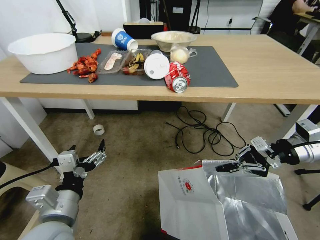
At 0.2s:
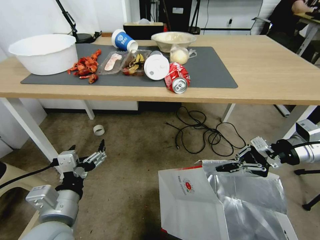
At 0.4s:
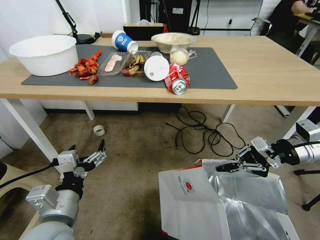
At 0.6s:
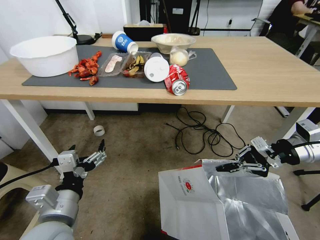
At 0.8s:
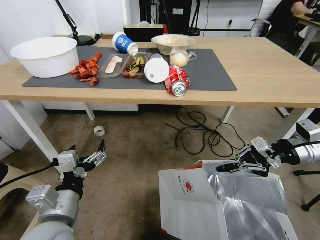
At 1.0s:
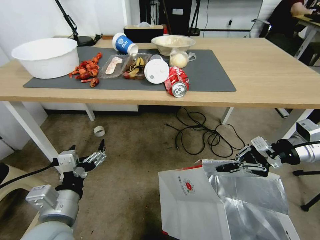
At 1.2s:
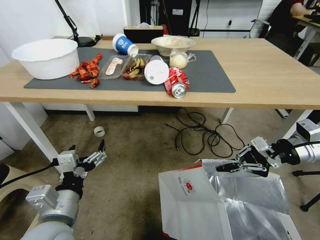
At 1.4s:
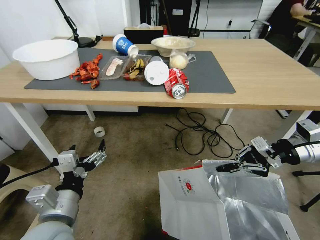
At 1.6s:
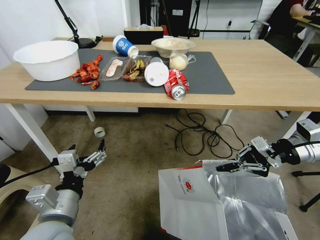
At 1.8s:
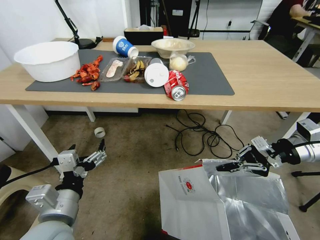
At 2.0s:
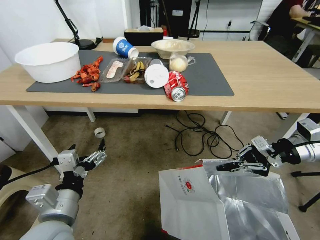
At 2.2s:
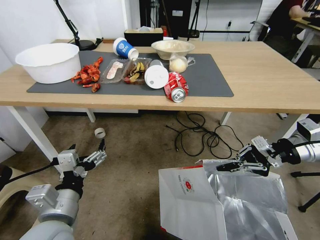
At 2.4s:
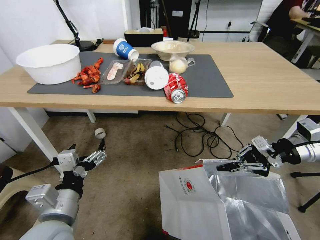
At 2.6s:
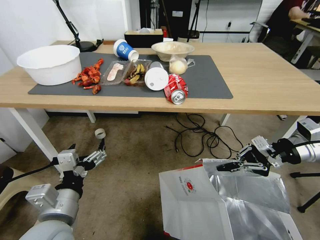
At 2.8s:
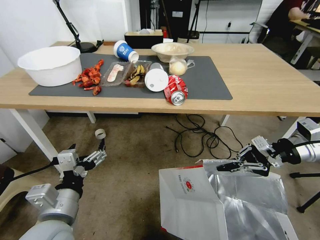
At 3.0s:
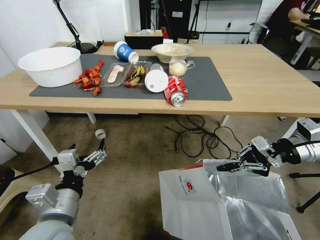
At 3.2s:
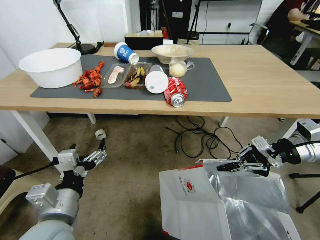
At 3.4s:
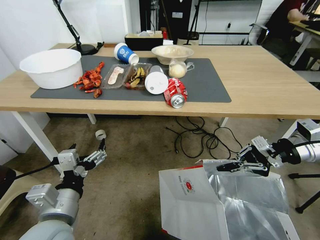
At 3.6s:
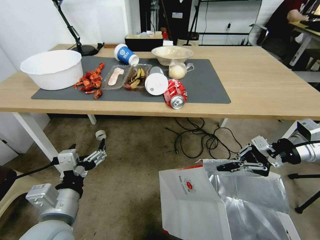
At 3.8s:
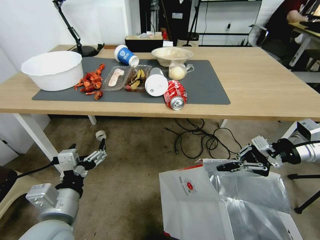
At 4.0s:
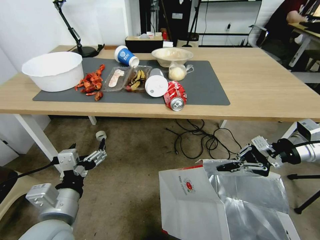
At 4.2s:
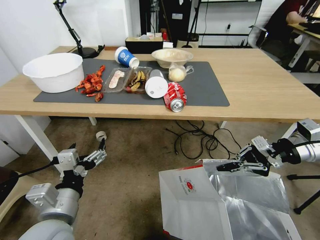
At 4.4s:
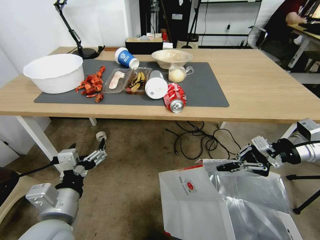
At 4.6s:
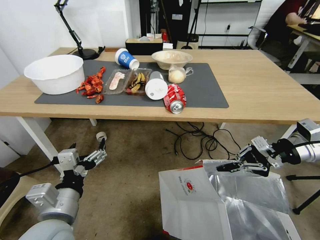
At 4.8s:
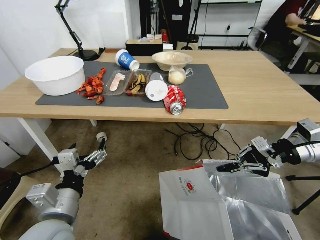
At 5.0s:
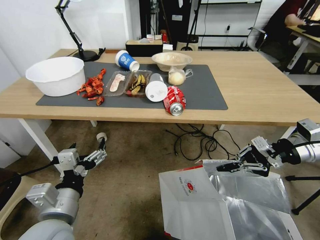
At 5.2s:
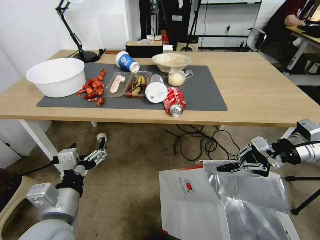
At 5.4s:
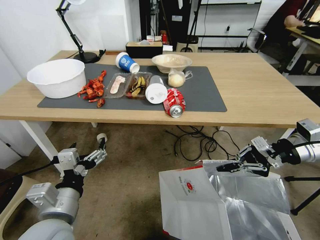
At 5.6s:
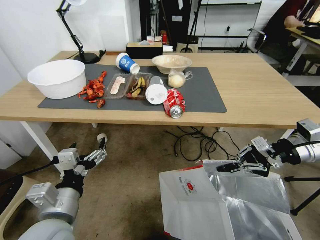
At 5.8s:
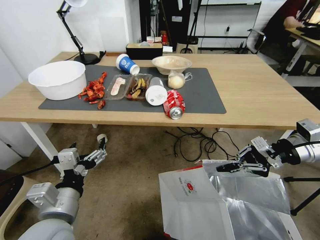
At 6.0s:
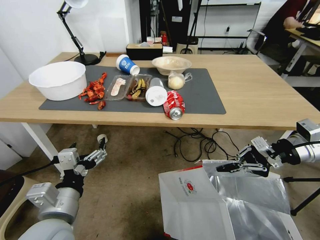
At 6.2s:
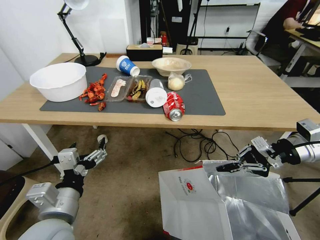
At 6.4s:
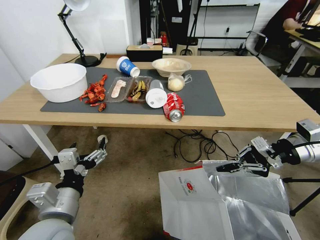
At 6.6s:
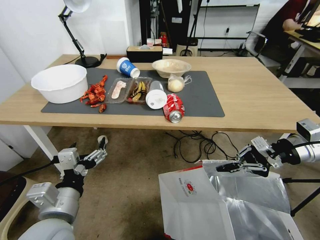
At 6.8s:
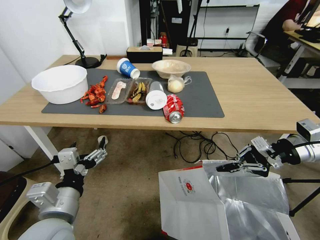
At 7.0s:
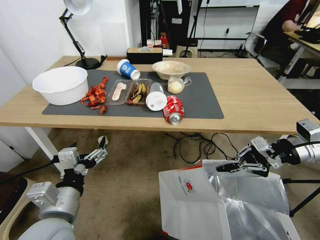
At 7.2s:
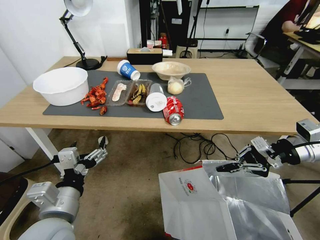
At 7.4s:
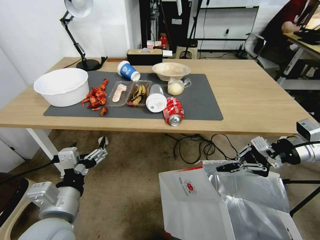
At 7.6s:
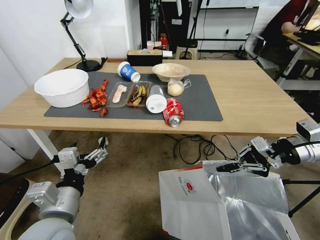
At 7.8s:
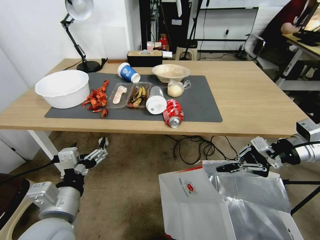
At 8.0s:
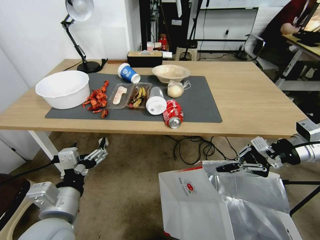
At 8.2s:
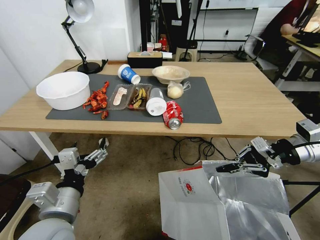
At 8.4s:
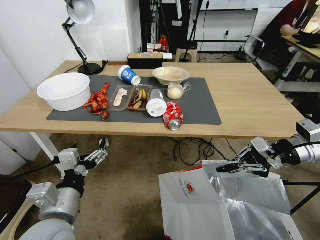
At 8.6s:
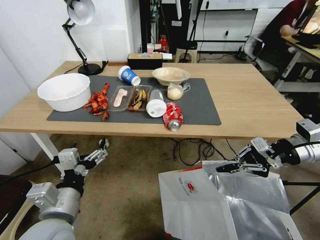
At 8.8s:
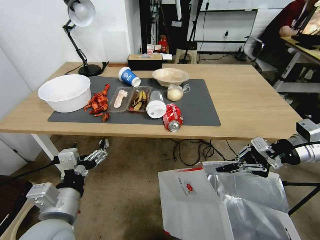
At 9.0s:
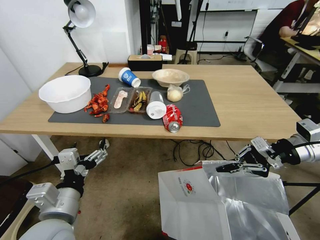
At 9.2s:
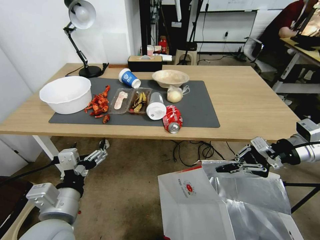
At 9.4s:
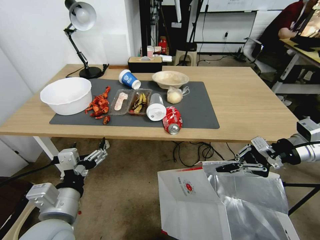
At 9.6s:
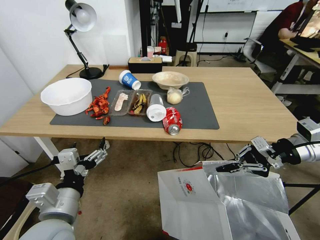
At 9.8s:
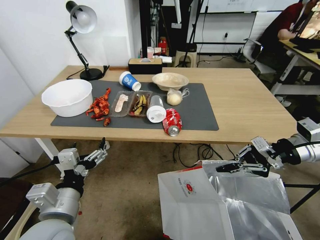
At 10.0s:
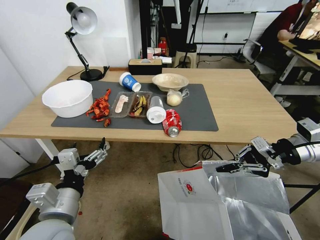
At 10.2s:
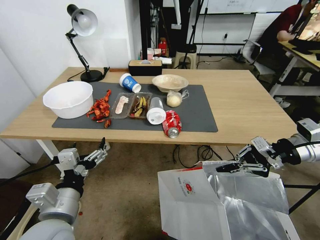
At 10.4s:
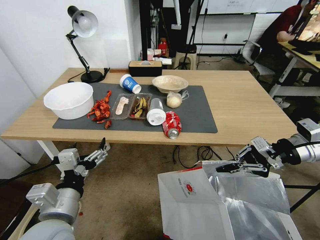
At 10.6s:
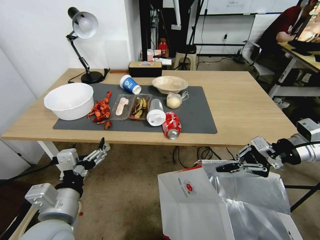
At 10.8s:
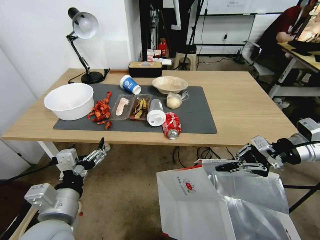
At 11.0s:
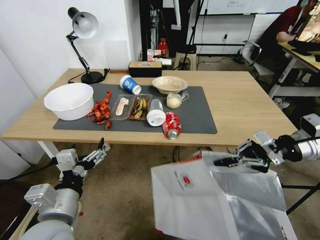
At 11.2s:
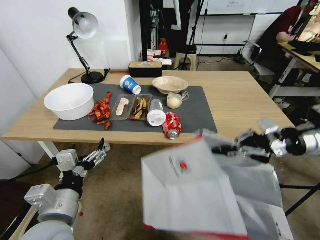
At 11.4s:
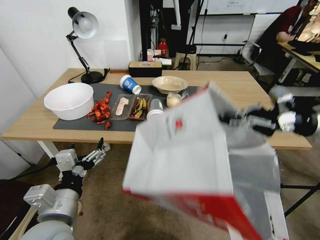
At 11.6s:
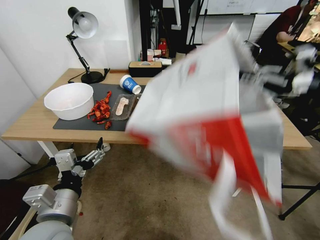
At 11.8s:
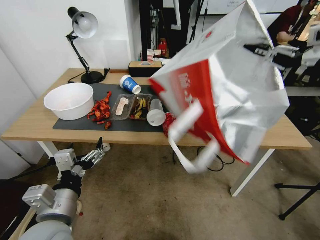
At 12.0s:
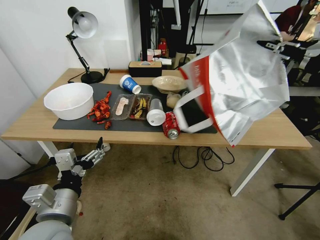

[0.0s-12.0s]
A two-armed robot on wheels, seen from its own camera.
Task of the whole recording: Pick up the food delivery bag from the floor and place it on the table.
10.4s to 12.0s: The right gripper is displaced upward by approximately 15 cm.

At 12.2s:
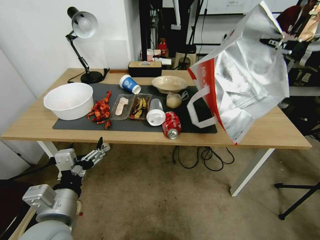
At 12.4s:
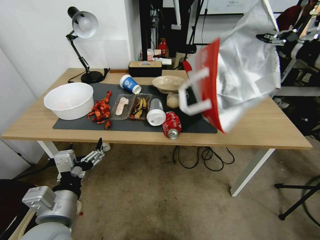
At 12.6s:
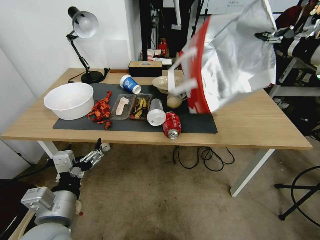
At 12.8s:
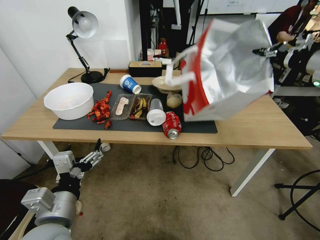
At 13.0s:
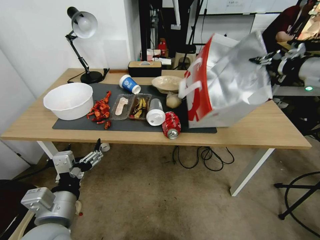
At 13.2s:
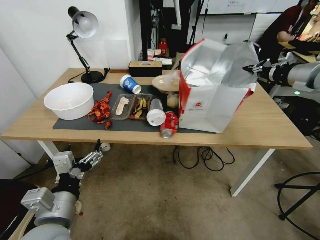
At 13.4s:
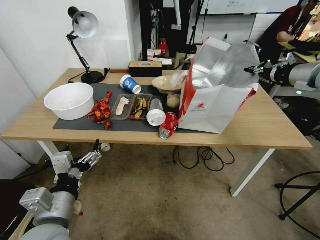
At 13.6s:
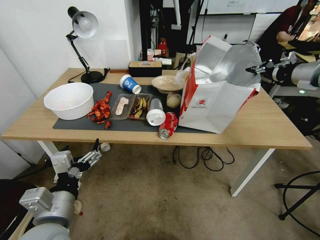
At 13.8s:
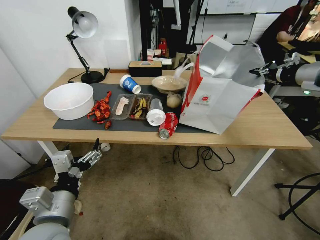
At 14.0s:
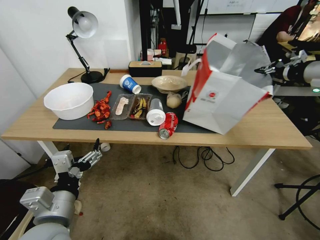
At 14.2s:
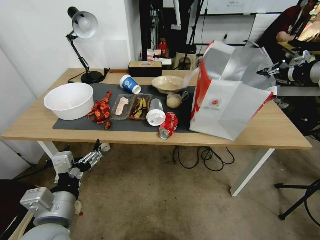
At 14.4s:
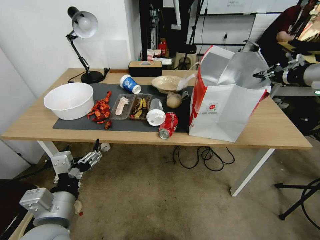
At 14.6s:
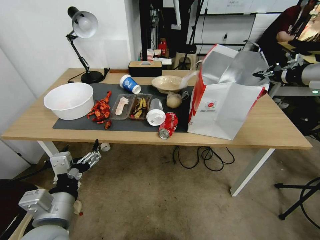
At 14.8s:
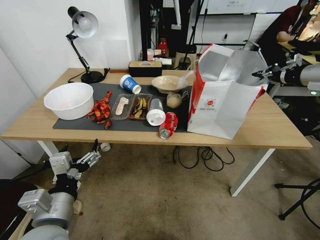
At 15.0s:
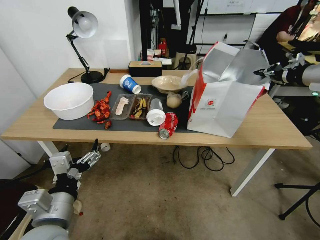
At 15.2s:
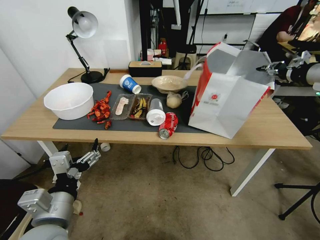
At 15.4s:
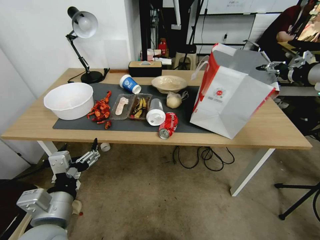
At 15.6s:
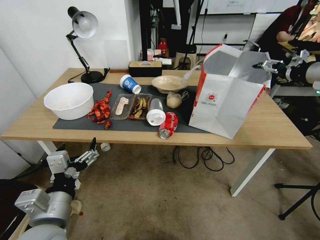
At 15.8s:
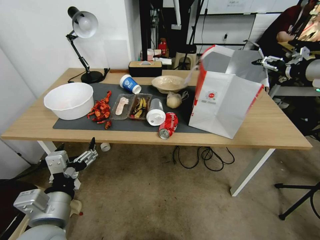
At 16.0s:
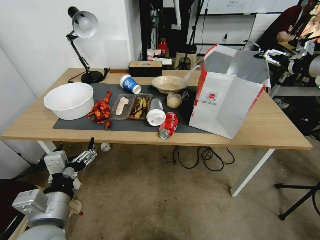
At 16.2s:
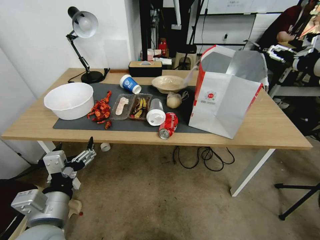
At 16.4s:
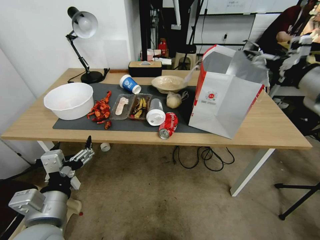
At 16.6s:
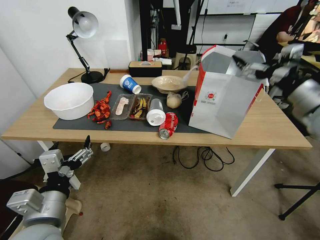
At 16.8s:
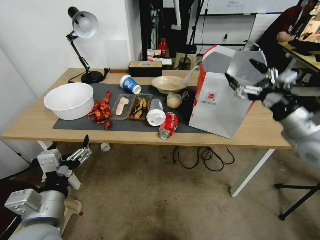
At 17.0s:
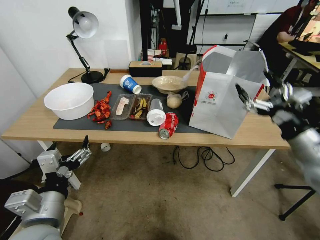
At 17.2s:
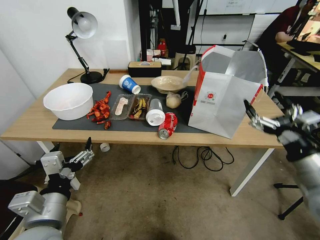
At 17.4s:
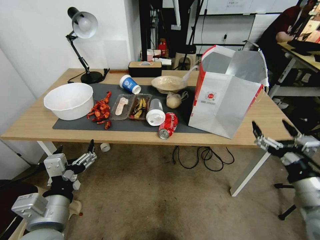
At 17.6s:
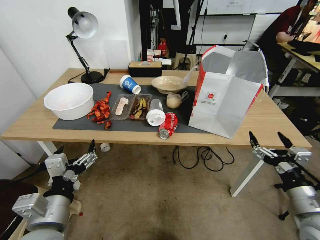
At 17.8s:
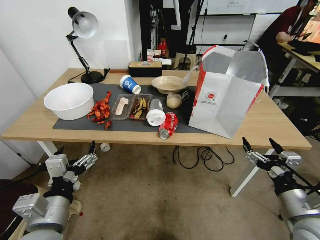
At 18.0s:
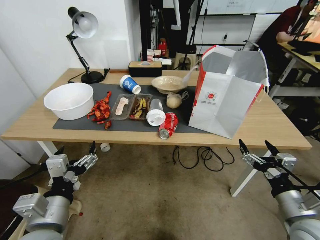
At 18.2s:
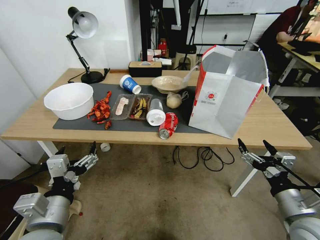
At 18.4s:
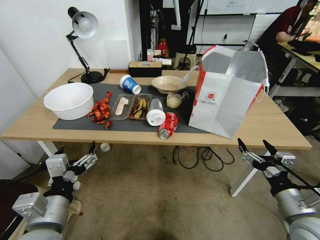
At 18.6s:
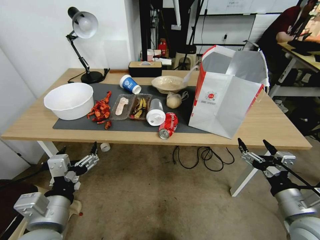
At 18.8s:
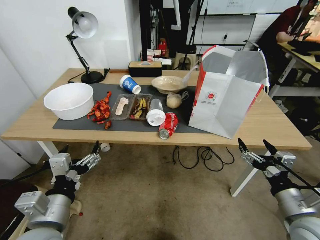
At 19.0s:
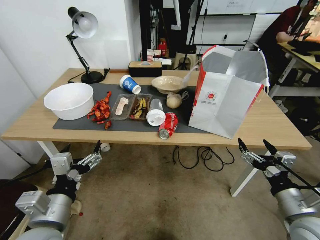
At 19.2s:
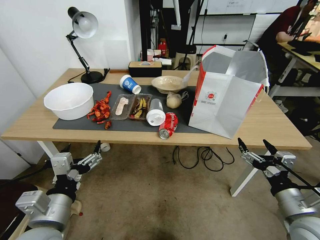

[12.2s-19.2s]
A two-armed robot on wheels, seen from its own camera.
Task of the whole recording: Pick up the food delivery bag from the floor and place it on the table.
12.2s to 13.6s: The right gripper goes approximately 5 cm forward.
13.6s to 15.0s: The grippers make only small movements.
15.0s to 16.4s: The right gripper heads backward and to the left, covering approximately 10 cm, and opens its fingers.
16.4s to 17.8s: The right gripper goes roughly 30 cm downward and backward.
17.8s to 19.2s: The two grippers keep their place.

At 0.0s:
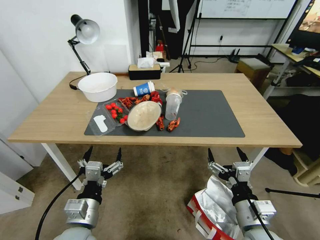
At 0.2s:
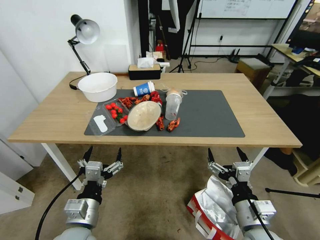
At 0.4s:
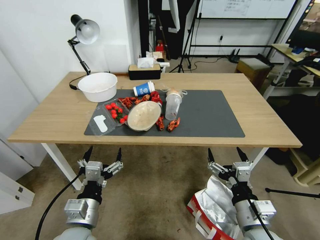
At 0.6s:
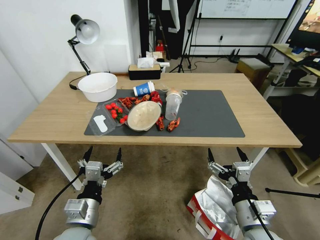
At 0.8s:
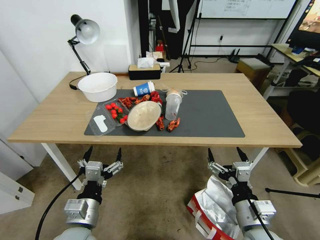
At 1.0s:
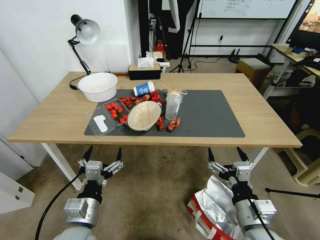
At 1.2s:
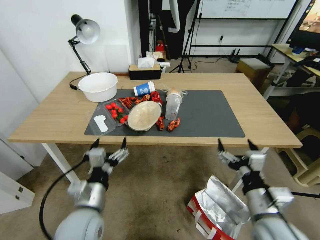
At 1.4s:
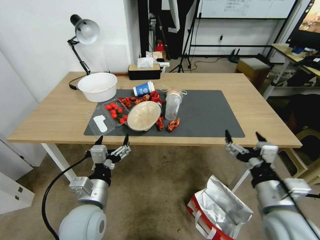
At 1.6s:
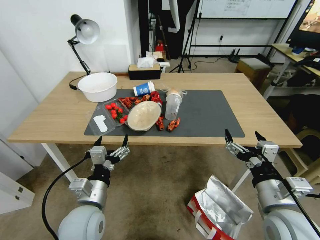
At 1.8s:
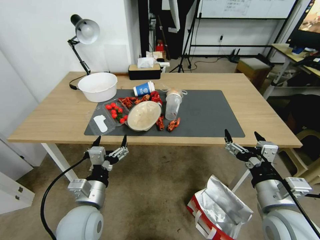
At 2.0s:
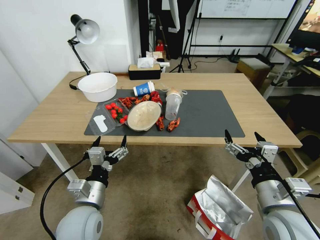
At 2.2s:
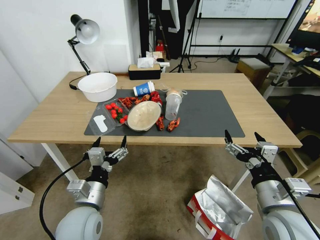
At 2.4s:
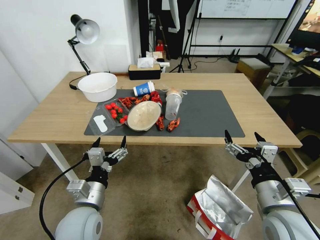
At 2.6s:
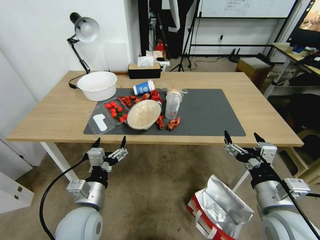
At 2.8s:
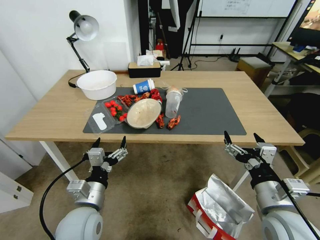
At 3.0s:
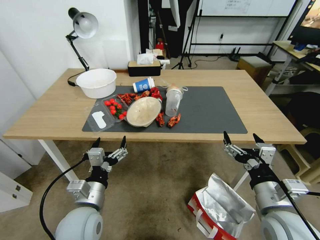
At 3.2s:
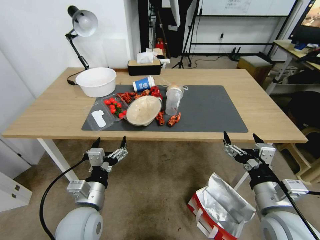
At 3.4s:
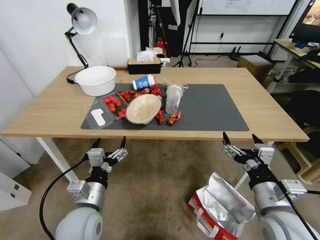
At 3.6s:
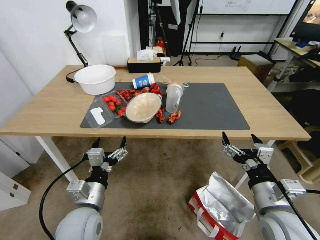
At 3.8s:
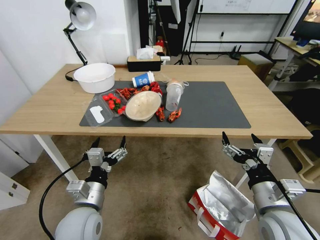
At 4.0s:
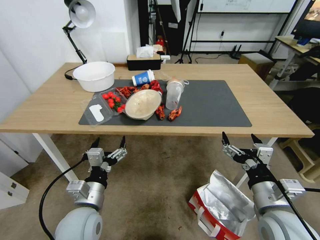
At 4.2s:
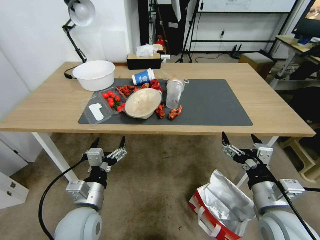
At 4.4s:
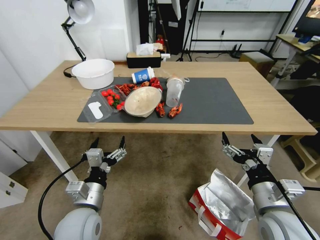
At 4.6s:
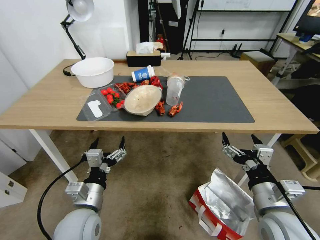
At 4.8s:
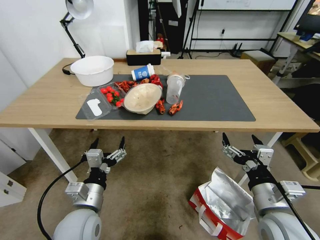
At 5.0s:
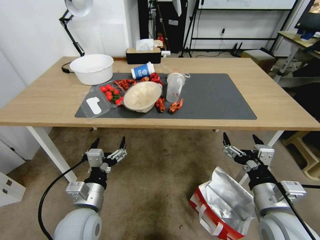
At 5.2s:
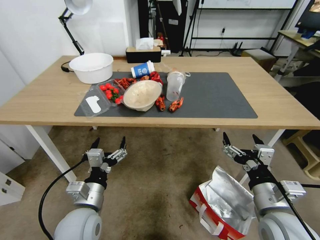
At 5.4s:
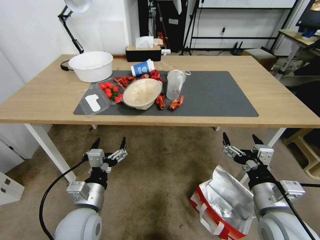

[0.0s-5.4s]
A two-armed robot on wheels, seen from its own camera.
Task of the whole recording: Pick up the food delivery bag from the floor and place it on the table.
1.4s to 2.8s: The grippers stay close to where they were, moving slightly.
